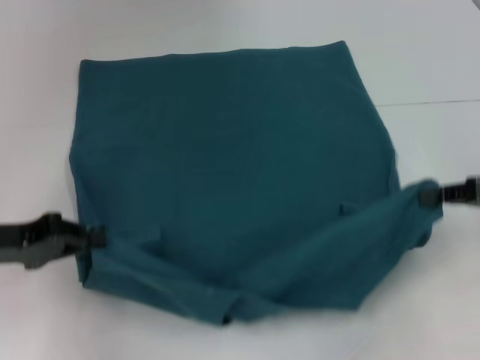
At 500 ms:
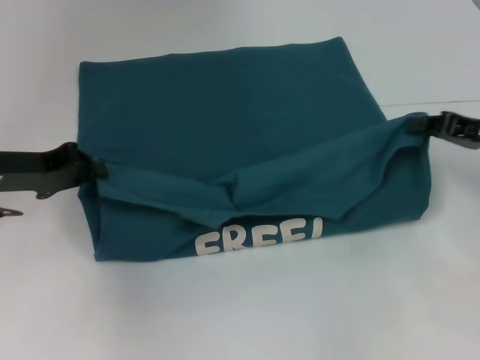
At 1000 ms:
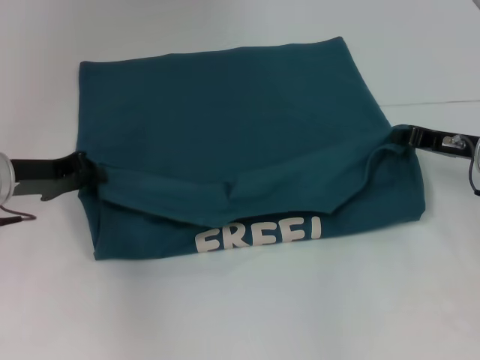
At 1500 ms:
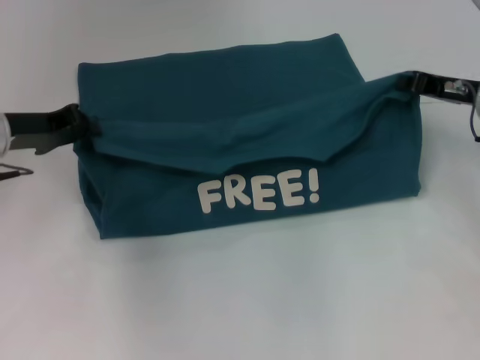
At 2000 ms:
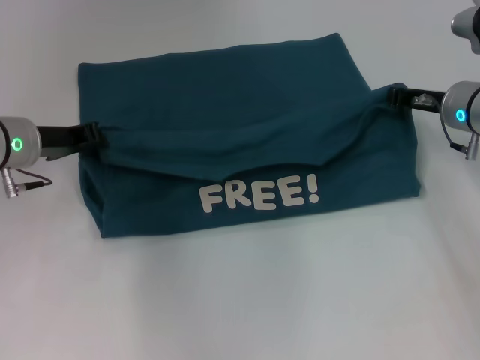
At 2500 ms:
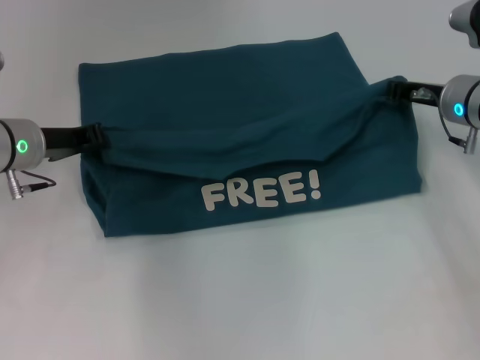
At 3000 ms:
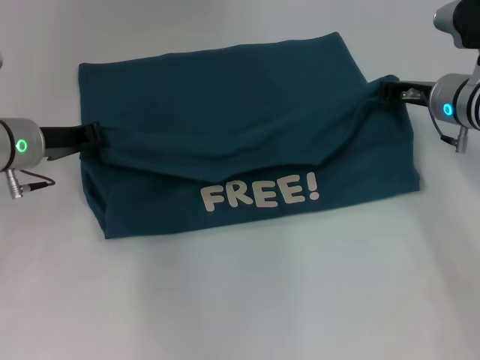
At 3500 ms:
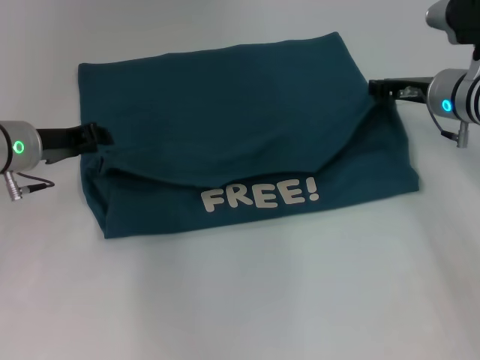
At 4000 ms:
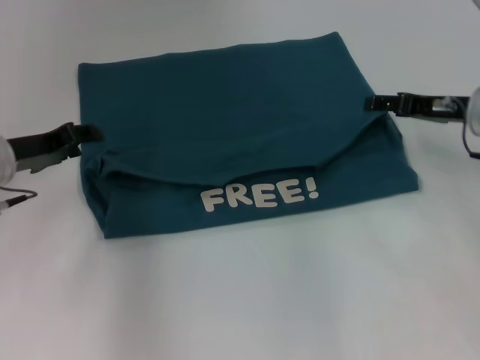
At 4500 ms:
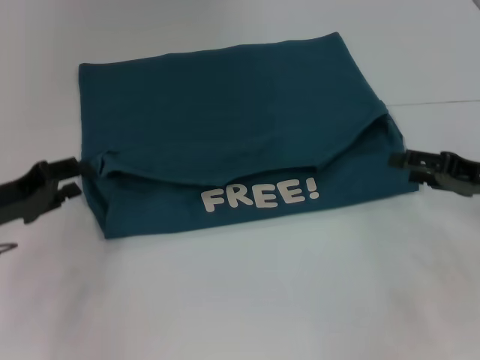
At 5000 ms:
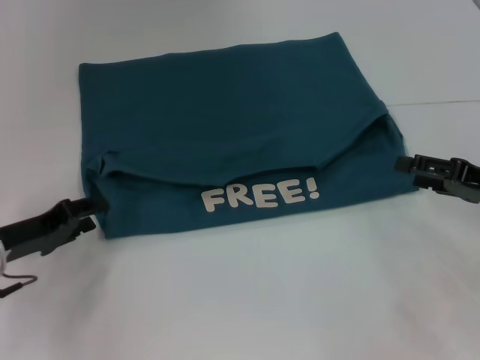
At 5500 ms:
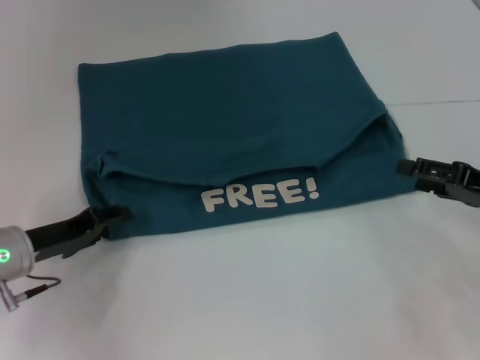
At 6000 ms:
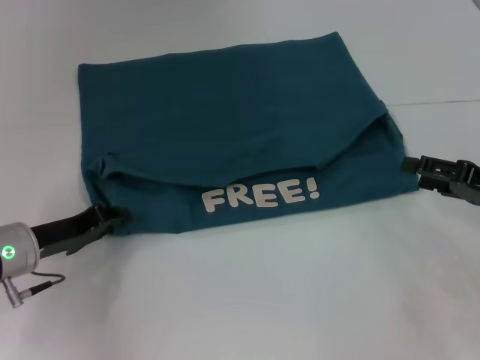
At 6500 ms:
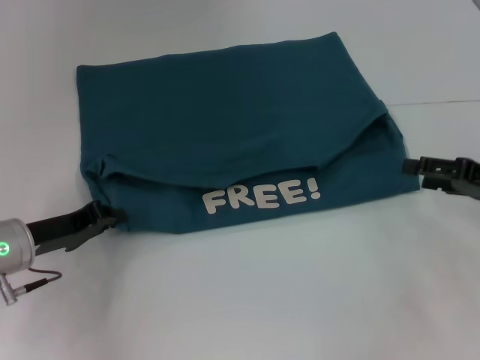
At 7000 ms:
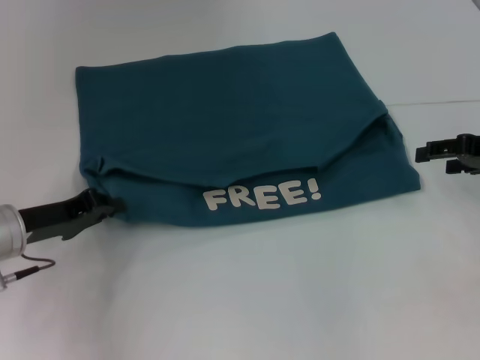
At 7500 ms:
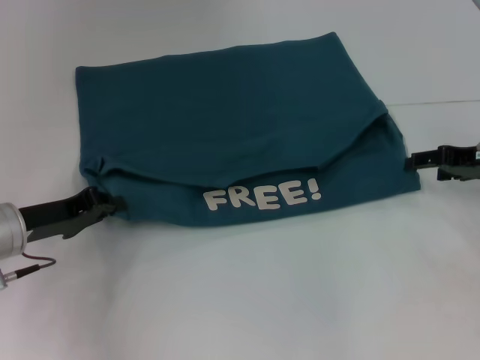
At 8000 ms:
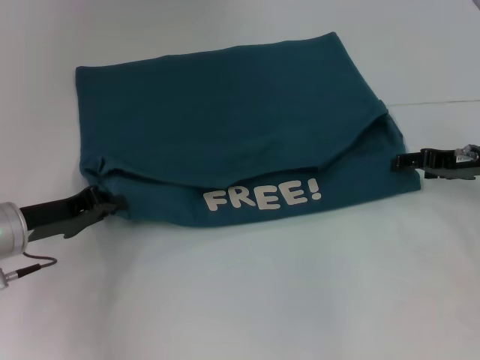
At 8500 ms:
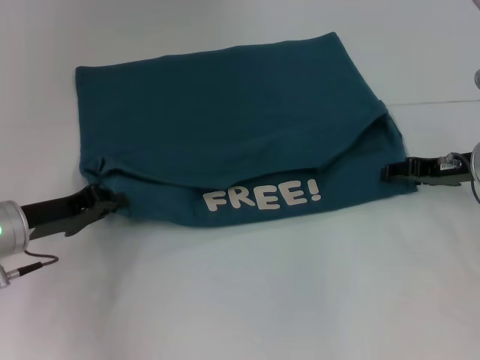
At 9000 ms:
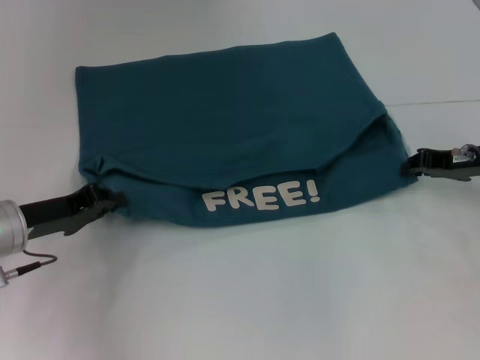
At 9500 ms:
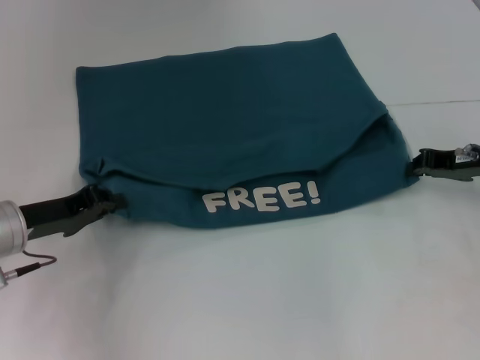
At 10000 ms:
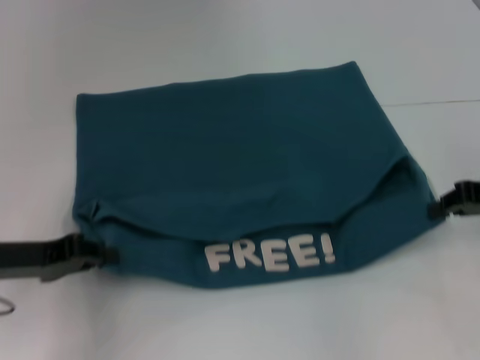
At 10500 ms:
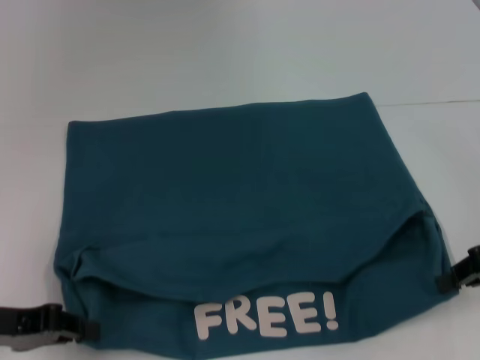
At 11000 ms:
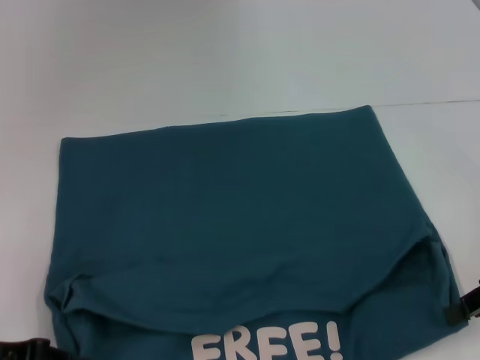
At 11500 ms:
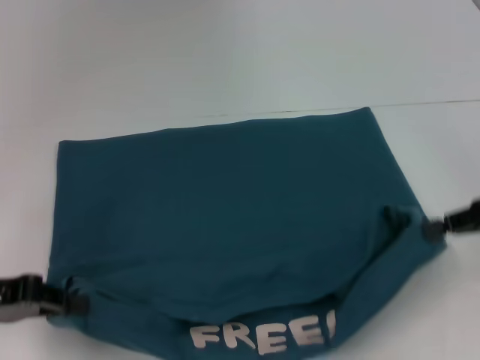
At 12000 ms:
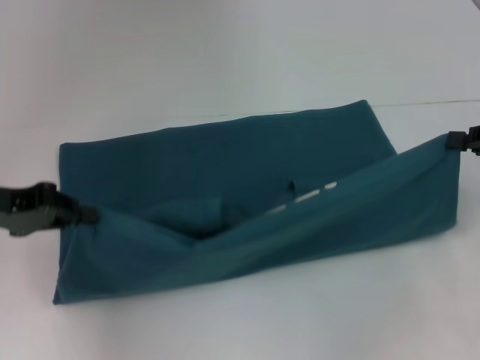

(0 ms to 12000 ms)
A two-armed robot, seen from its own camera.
Step, 0 ms - 3500 ms: Fold the clothes to the left.
Step, 0 ms - 3500 ms: Fold the clothes to the right.
Step, 4000 ms - 11000 ms: Pull the clothes with your left hand.
Step, 4000 ms - 11000 ms: Pull the clothes with your right hand.
0 ms - 2000 ms: The left gripper heads forward and to the right, covering some 15 cm. The right gripper is displaced forward and to the left by roughly 15 cm.
2000 ms - 4000 ms: The left gripper opens up. The right gripper opens.
4000 ms - 6000 ms: The right gripper goes some 10 cm backward and to the right; the left gripper travels downward and backward by roughly 10 cm.
6000 ms - 8000 ms: The left gripper closes. The right gripper moves forward, some 10 cm.
8000 ms - 10000 ms: The right gripper shifts by approximately 5 cm, and closes.
10000 ms - 12000 ms: The left gripper shifts roughly 5 cm upward, and reaches approximately 5 cm backward, then returns.

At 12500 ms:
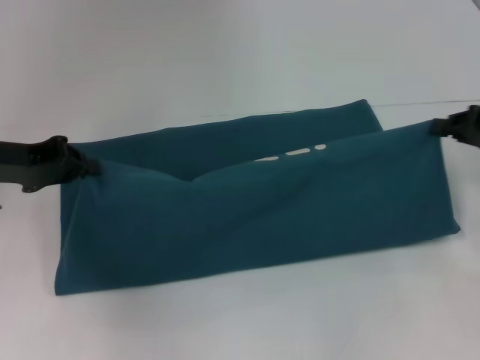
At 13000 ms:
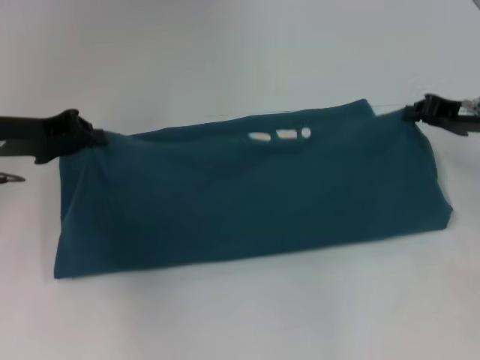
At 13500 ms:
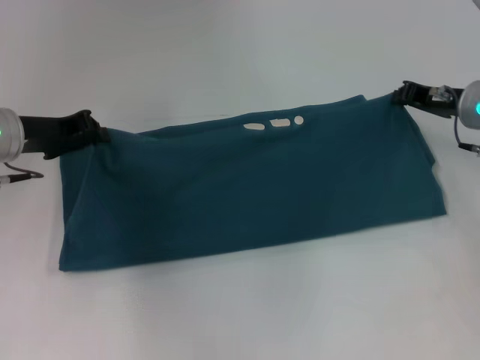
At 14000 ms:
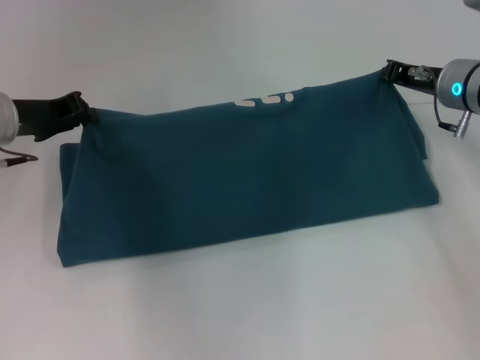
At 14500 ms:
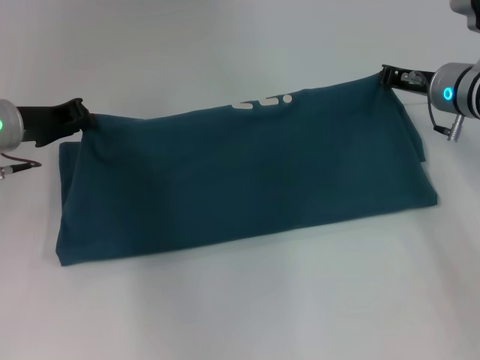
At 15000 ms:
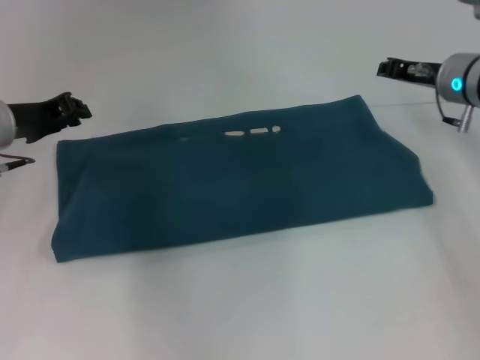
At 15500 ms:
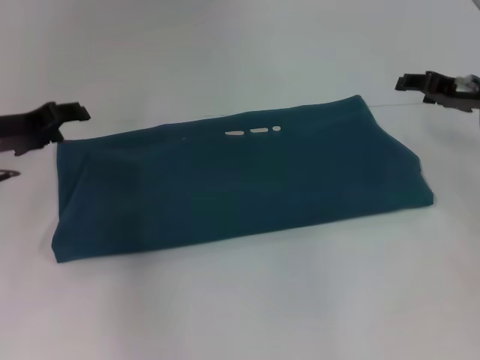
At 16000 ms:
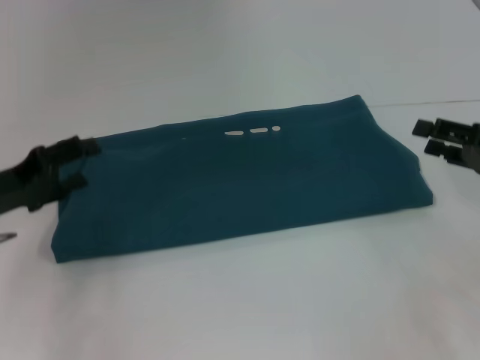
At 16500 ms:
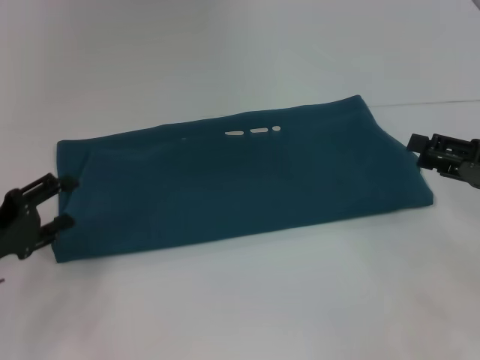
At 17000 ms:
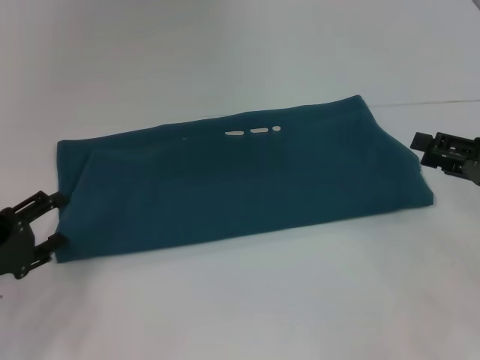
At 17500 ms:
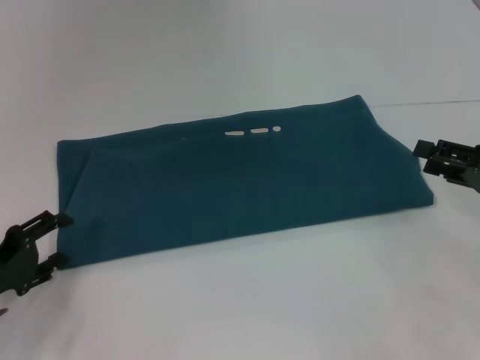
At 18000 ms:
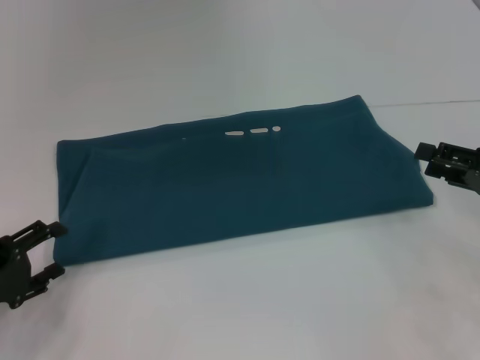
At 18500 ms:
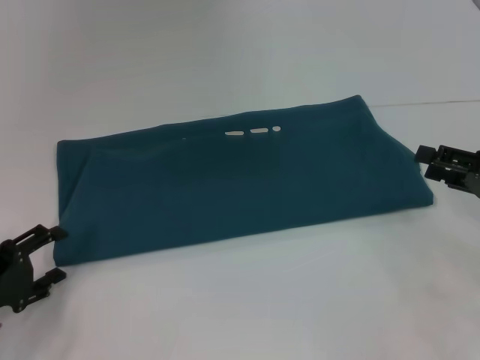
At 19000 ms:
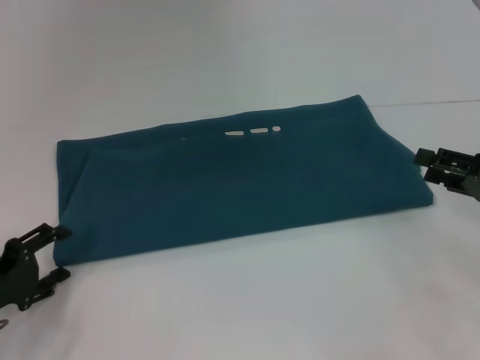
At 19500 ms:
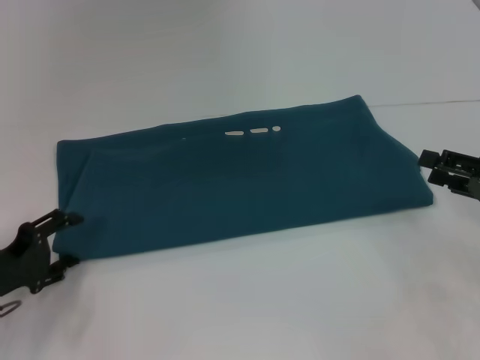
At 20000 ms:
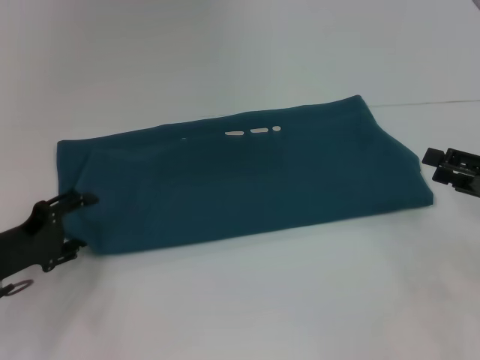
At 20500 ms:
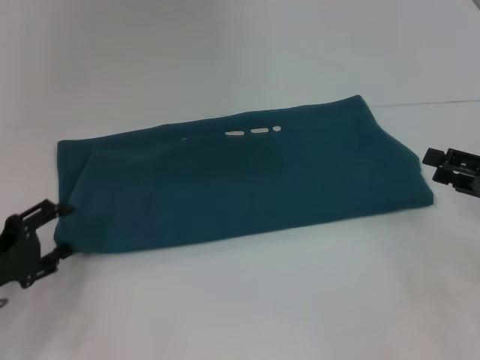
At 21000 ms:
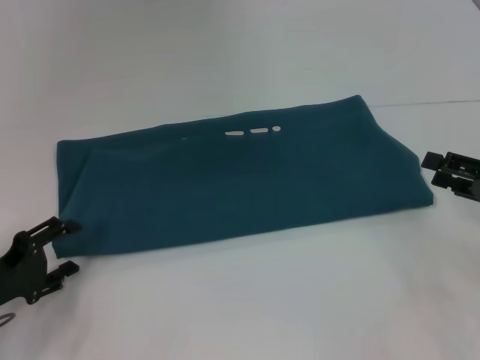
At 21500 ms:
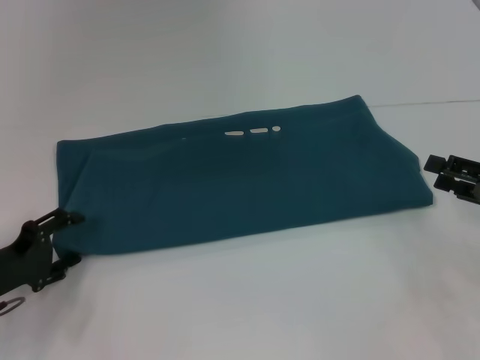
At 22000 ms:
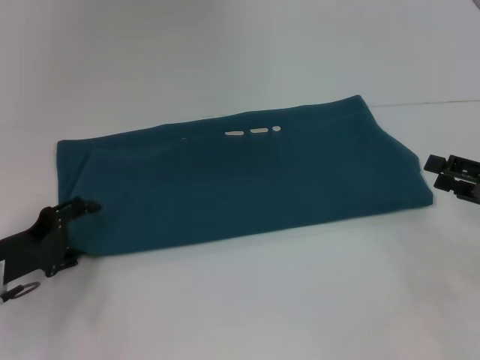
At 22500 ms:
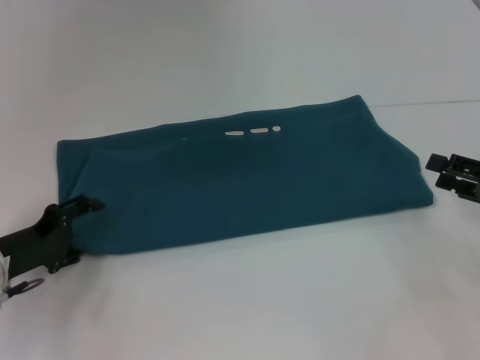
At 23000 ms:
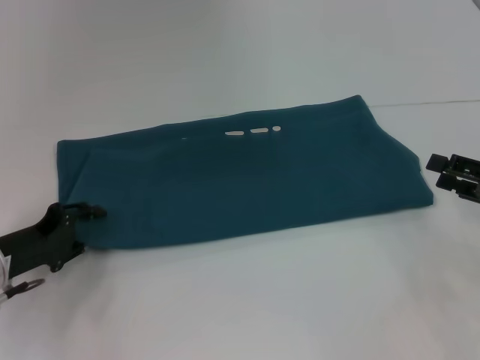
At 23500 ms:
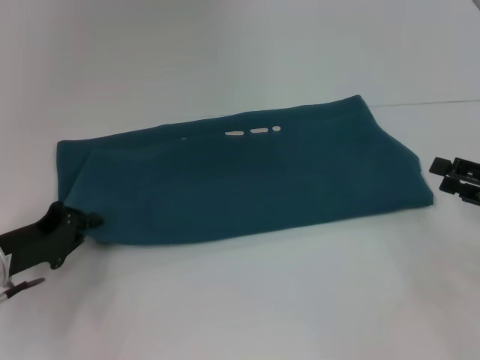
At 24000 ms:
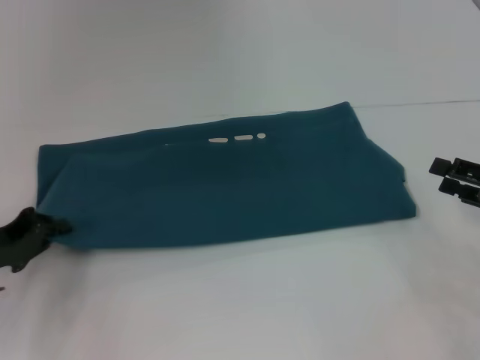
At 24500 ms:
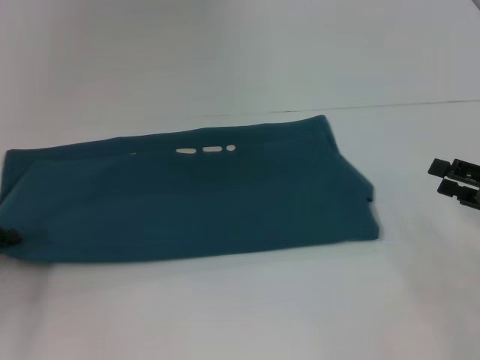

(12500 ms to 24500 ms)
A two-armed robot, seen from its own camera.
Step, 12500 ms - 15000 ms: Fold the clothes to the right.
12500 ms - 14500 ms: The left gripper shifts roughly 5 cm forward, while the right gripper is displaced to the left and forward by approximately 15 cm.
14500 ms - 16500 ms: The right gripper goes approximately 20 cm backward and to the right, and opens. Meanwhile the left gripper is displaced backward, downward and to the left by some 15 cm, and opens.
16500 ms - 22500 ms: The grippers make only small movements.
22500 ms - 24500 ms: The left gripper shifts approximately 5 cm to the left, and closes.

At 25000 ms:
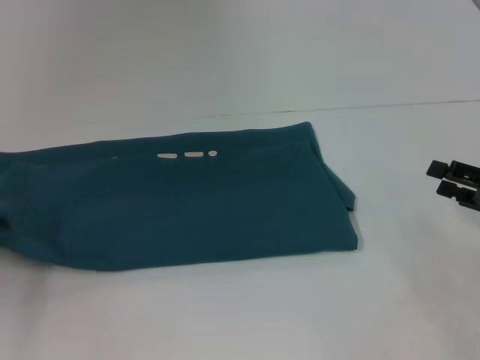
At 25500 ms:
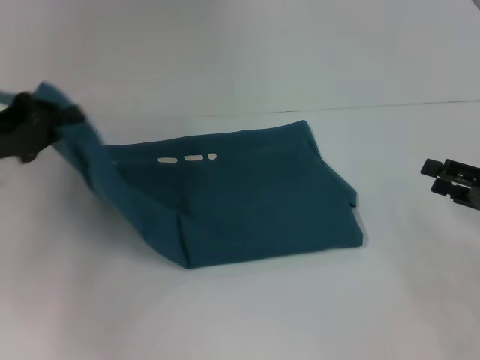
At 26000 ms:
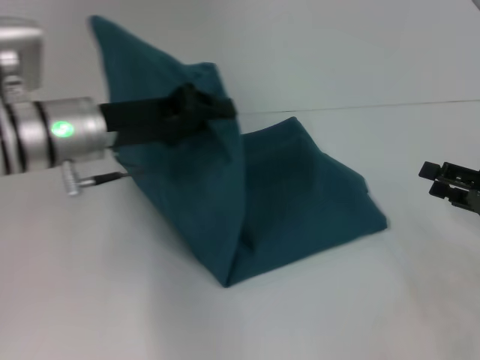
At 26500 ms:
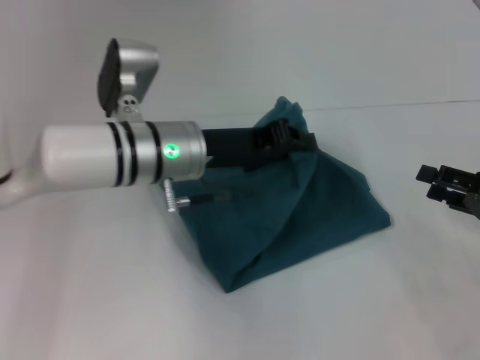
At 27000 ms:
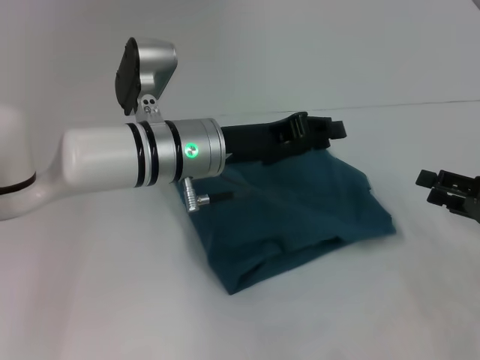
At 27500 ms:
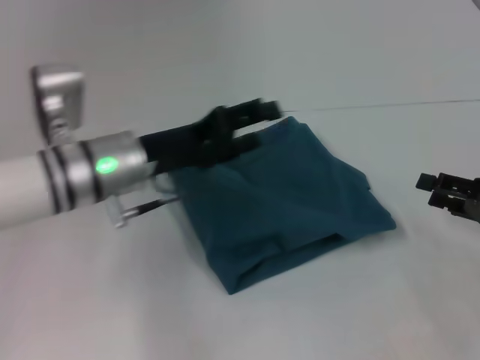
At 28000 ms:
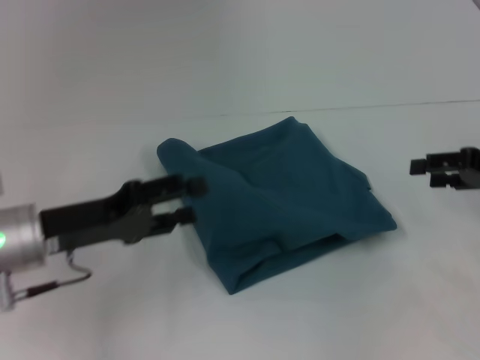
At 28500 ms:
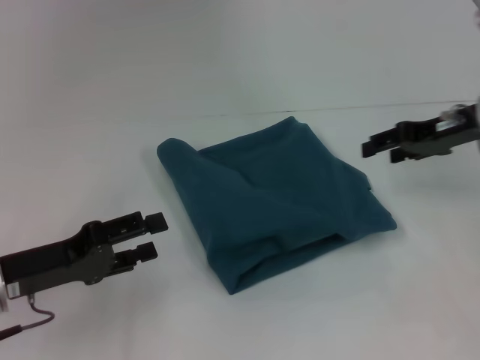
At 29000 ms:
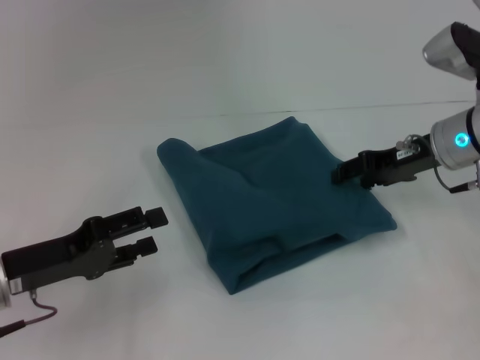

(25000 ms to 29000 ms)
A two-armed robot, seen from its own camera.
Step, 25000 ms - 27000 ms: Fold the clothes to the left.
25000 ms - 27000 ms: The left gripper is displaced to the right by approximately 30 cm.
27000 ms - 29000 ms: The right gripper goes roughly 15 cm forward, to the left and upward. Meanwhile the left gripper heads to the left and backward, covering some 20 cm, and opens.
